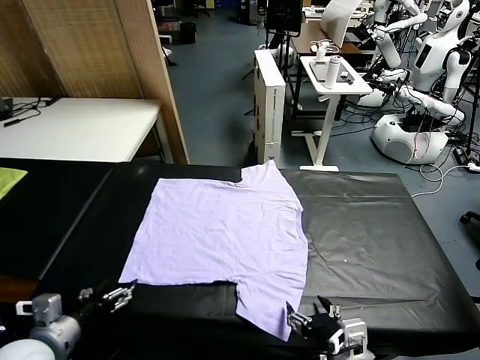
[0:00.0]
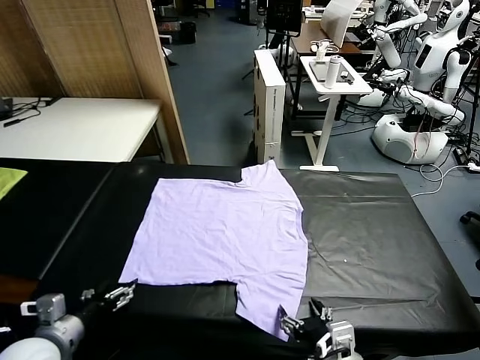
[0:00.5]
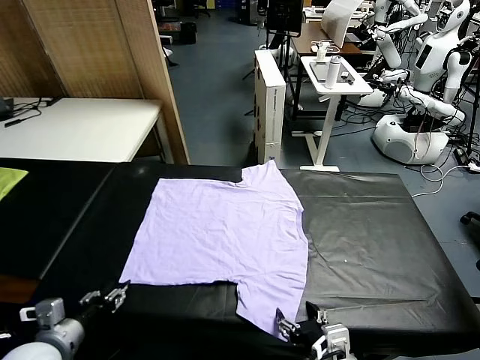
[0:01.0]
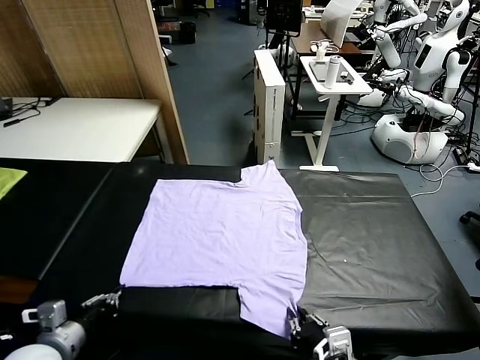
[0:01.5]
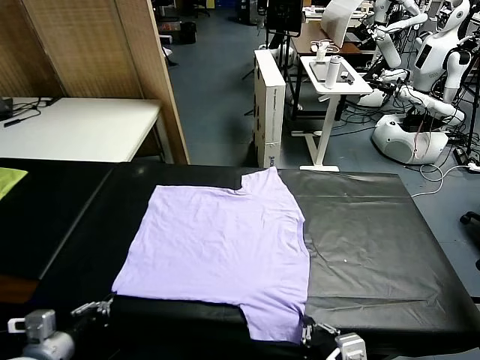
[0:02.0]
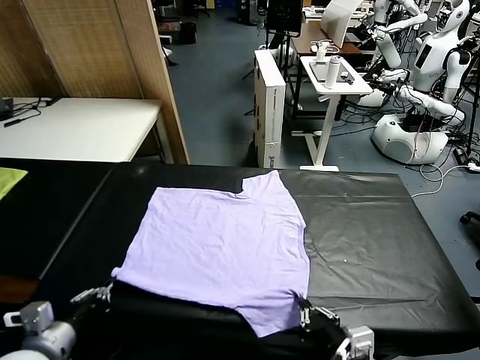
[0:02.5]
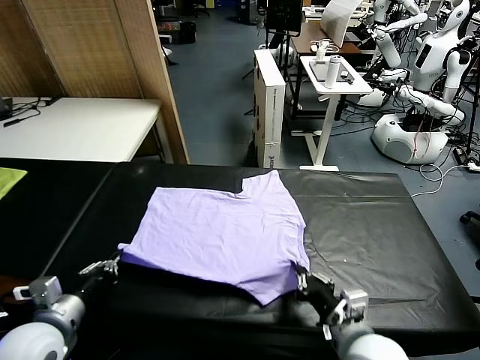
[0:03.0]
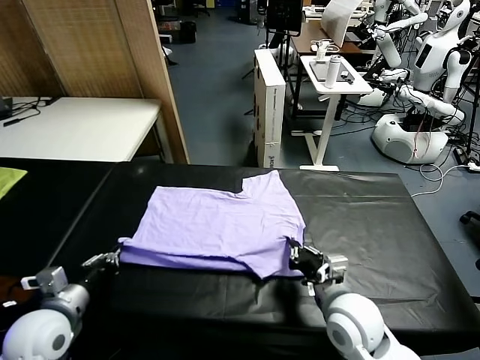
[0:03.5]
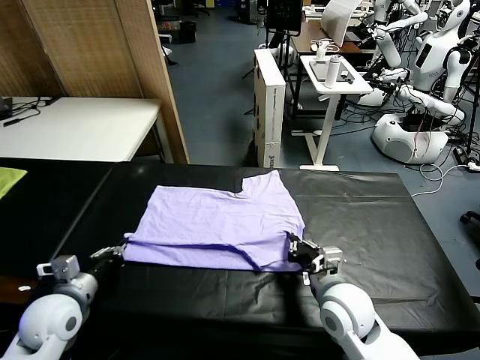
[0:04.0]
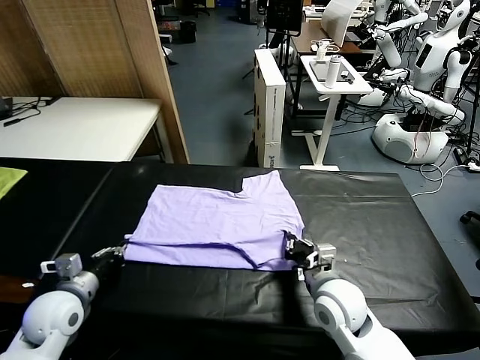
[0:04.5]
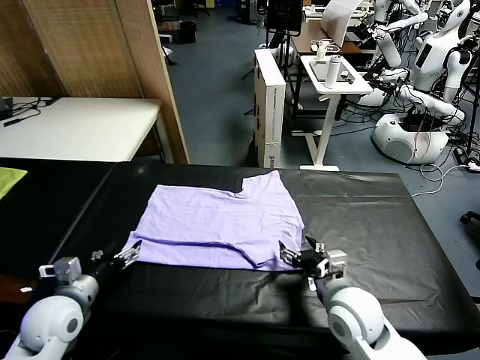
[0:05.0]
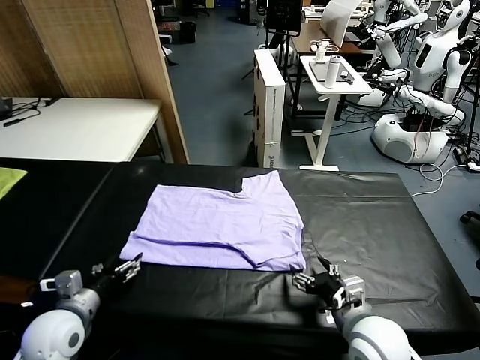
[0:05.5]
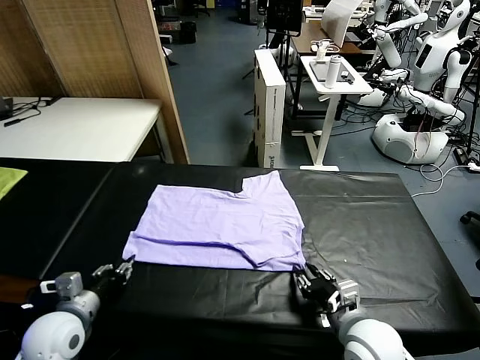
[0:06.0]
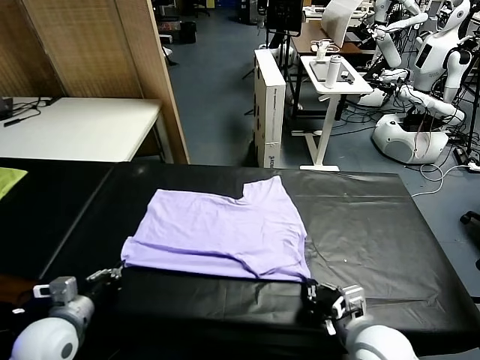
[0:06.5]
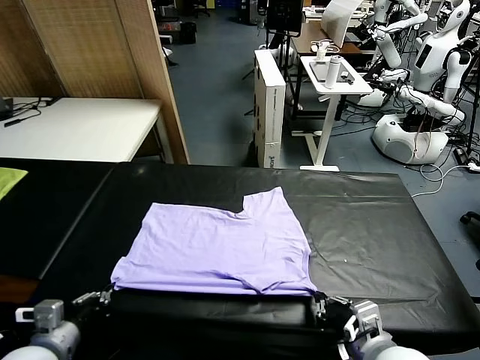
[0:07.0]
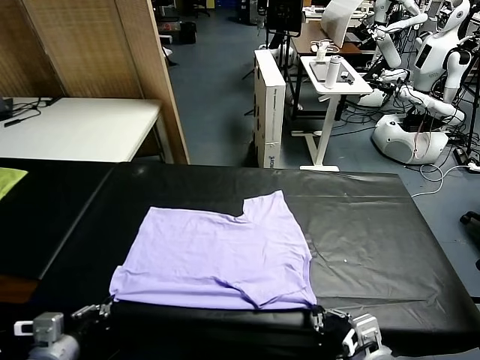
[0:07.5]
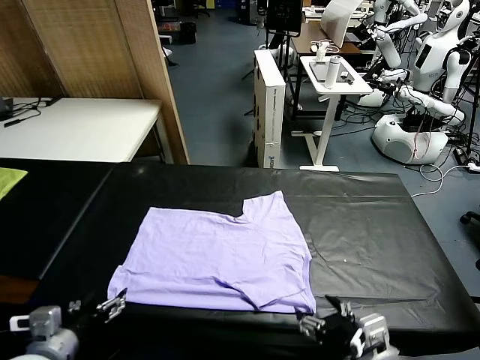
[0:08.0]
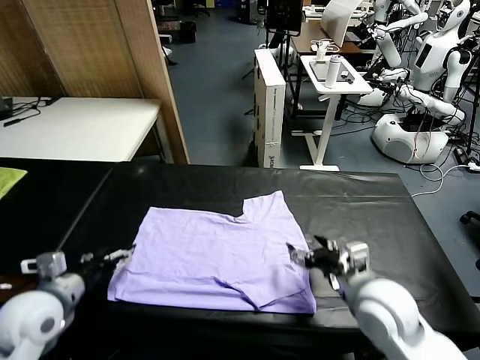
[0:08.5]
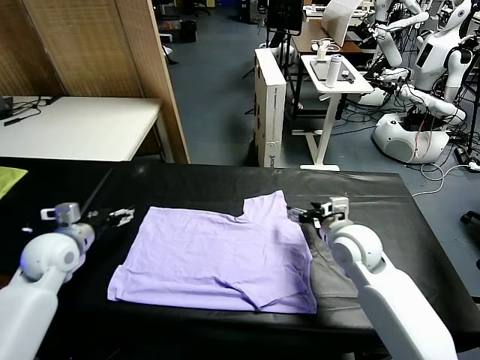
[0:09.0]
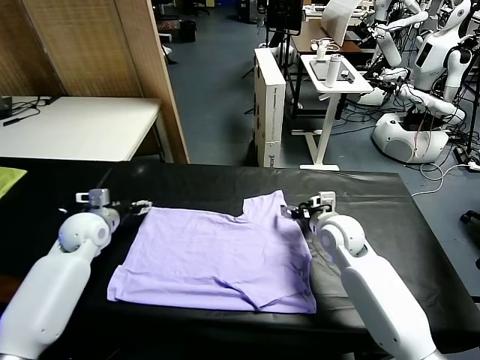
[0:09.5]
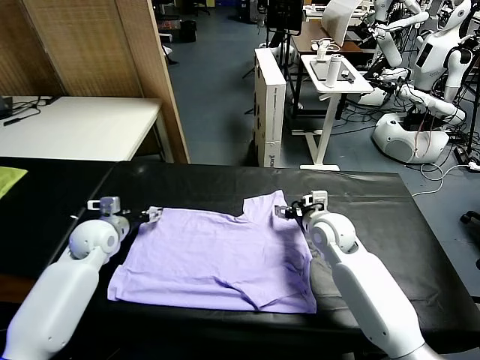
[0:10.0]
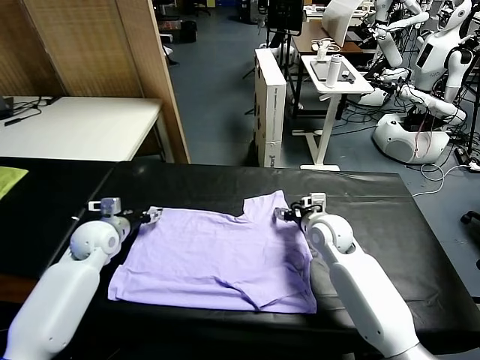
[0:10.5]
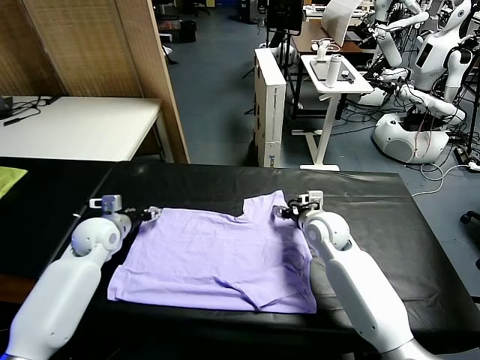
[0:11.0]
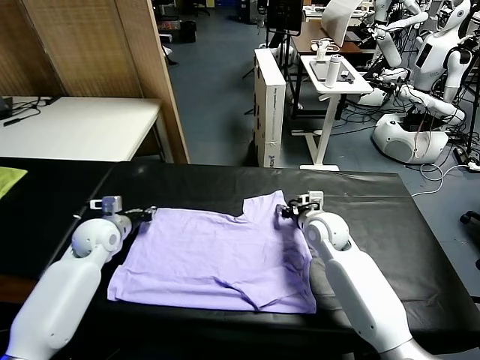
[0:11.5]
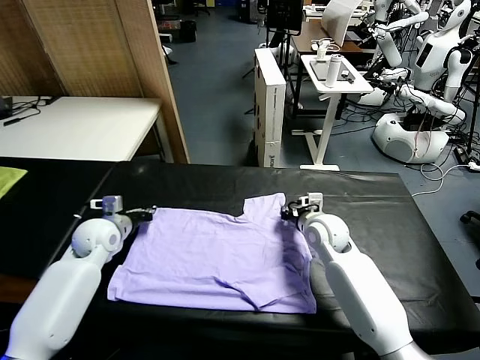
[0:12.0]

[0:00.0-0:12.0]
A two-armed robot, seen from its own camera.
Task of the whole recording: fold and organize the clothes.
Step, 0:00.0 to 0:01.5: use both grippers simultaneously to clamp the lower edge of the clothing fabric.
Step, 0:02.0 to 0:04.5: use both grippers to drag the lower edge of the fabric forward and fold it over the upper edge.
Step, 0:05.0 to 0:07.5: Drag the clothes downward with both gripper.
Step, 0:08.0 to 0:12.0: use both grippers simultaneously to clamp the upper edge of the clothing fabric.
0:02.0 to 0:04.0: The two grippers go some 15 cm forward.
0:04.0 to 0:06.0: The right gripper is displaced backward by about 10 cm, and opens, then closes once more. The left gripper opens, then closes again.
0:06.0 to 0:08.0: The left gripper travels backward and upward by some 10 cm, and opens. Meanwhile the right gripper heads upward, covering roughly 10 cm, moves about 10 cm backward and comes back, and opens up.
0:08.0 to 0:10.0: Both grippers move forward, some 25 cm.
0:10.0 to 0:12.0: The right gripper closes; the left gripper closes up.

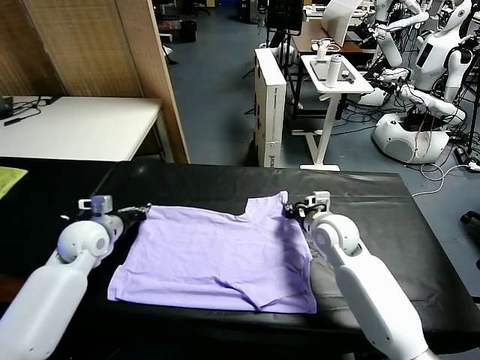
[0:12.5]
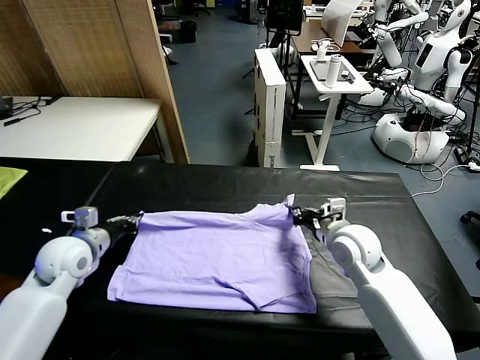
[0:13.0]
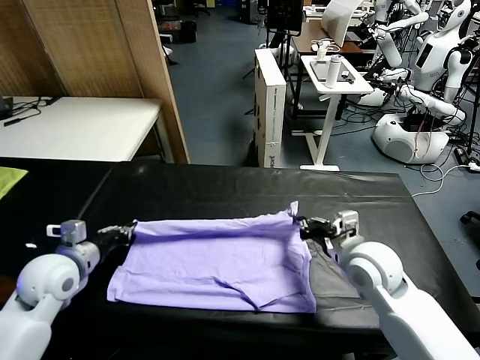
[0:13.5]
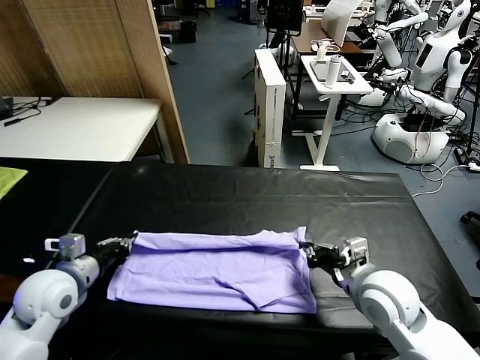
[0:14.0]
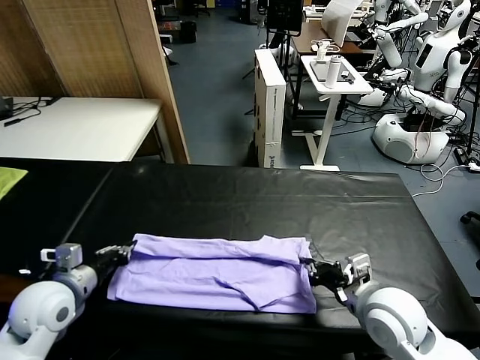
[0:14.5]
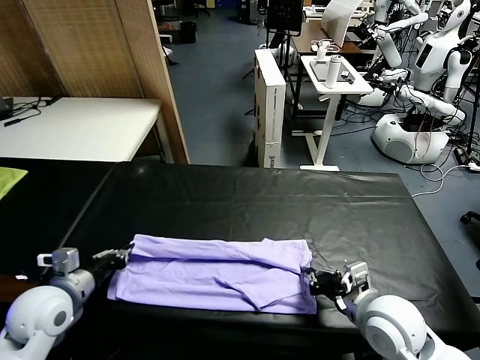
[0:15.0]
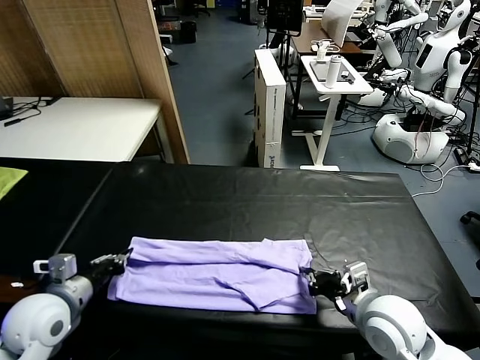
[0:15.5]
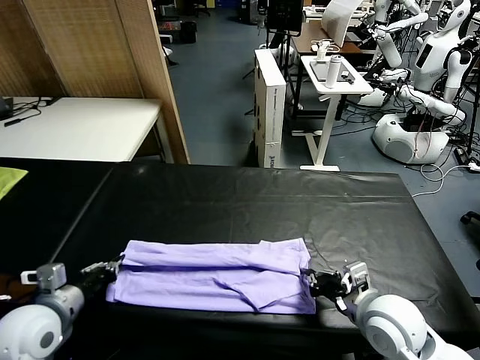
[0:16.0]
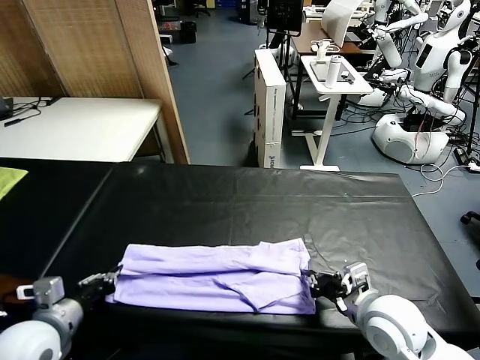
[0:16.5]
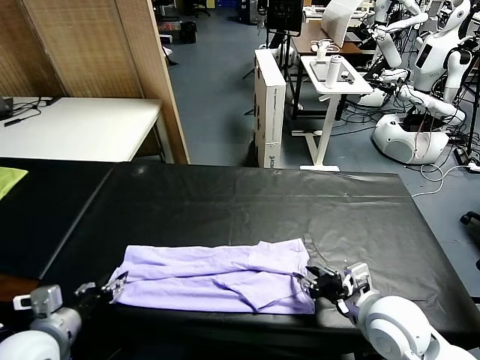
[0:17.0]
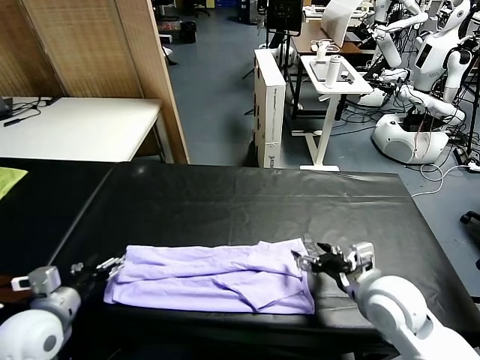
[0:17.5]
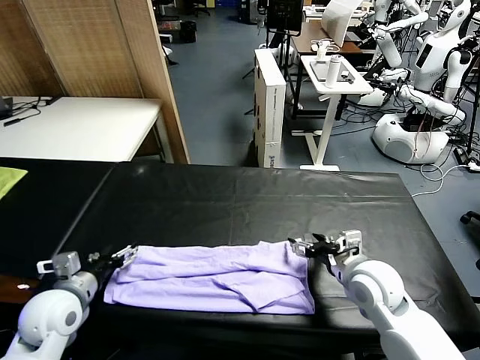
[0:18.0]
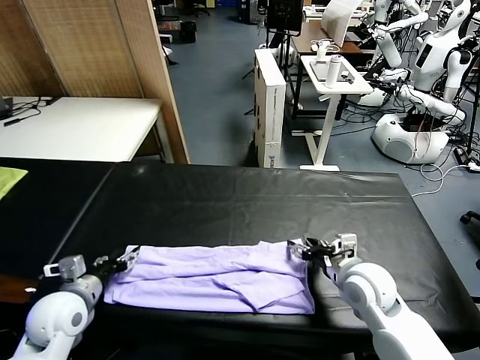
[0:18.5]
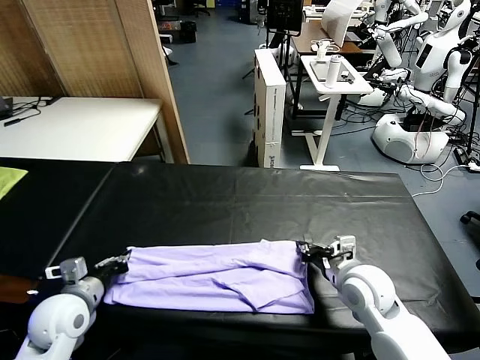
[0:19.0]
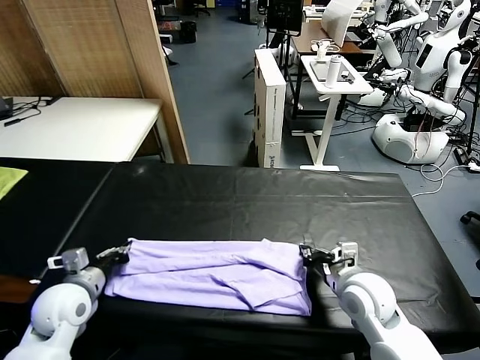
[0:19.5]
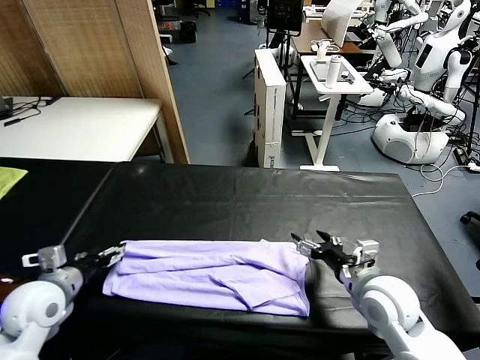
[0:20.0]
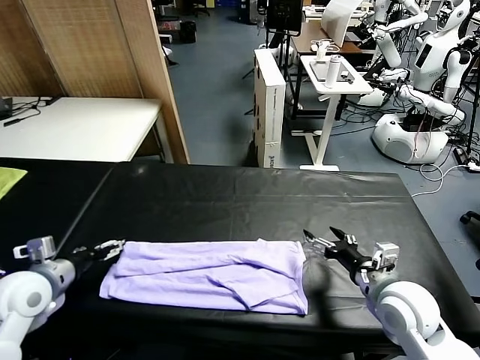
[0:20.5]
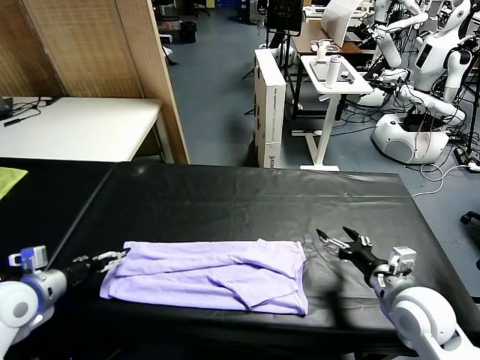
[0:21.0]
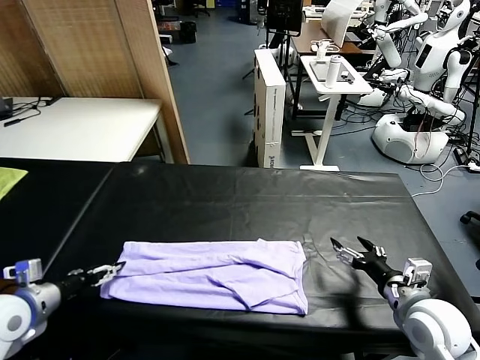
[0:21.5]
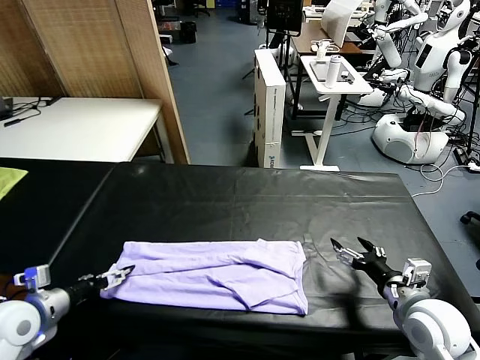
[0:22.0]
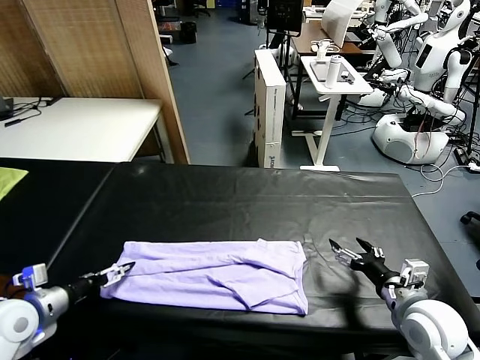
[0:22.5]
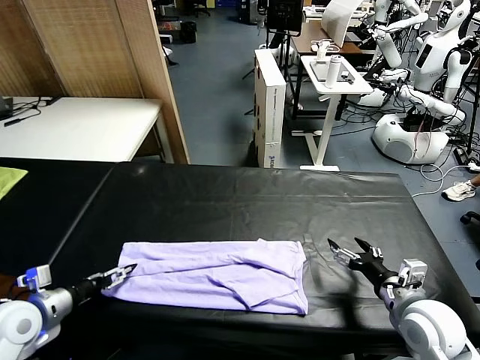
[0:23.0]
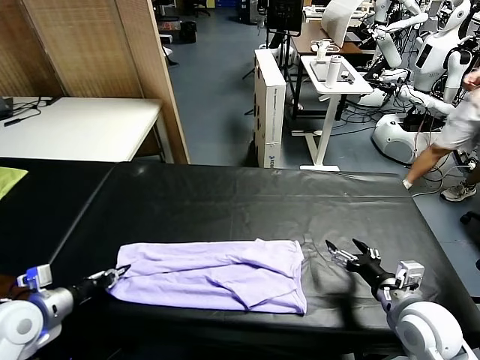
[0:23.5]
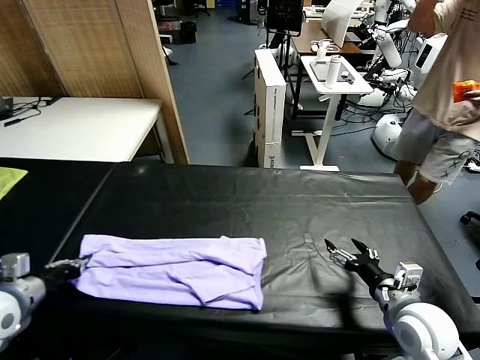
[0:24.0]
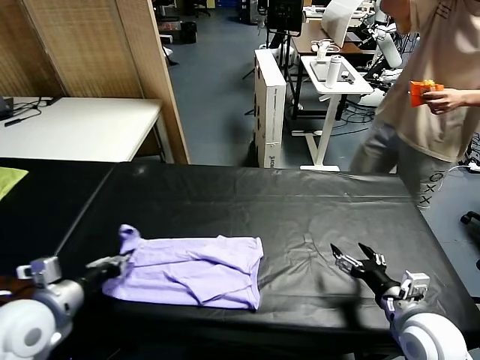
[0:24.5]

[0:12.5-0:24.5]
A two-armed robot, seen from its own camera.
Task of the whole recording: fold and organize the clothes.
Step, 0:12.5 to 0:17.0: use both grippers to drag the upper edge of the fabric backward and fold it over the lower edge.
Step, 0:17.5 to 0:23.5: use the left gripper to clamp the left edge of the fabric.
0:12.5 to 0:14.5: Both grippers move backward, roughly 15 cm.
0:14.5 to 0:16.5: The left gripper is displaced backward by roughly 5 cm.
0:16.5 to 0:18.5: The two grippers go some 5 cm forward. The left gripper opens up. Meanwhile the right gripper opens.
0:18.5 to 0:20.5: The left gripper heads upward, covering about 5 cm, and closes, then reopens. The right gripper goes roughly 5 cm backward, and opens up.
0:20.5 to 0:22.5: The right gripper ends up about 5 cm from where it was. The left gripper moves about 5 cm.
0:22.5 to 0:24.5: The left gripper travels to the right and upward by about 10 cm, and closes up.

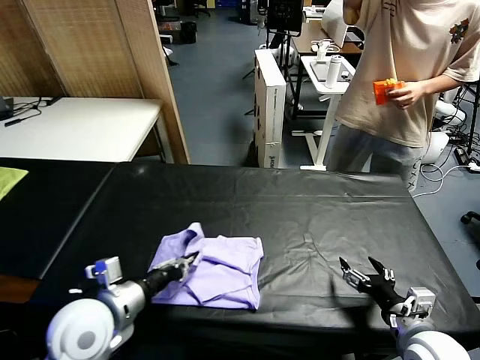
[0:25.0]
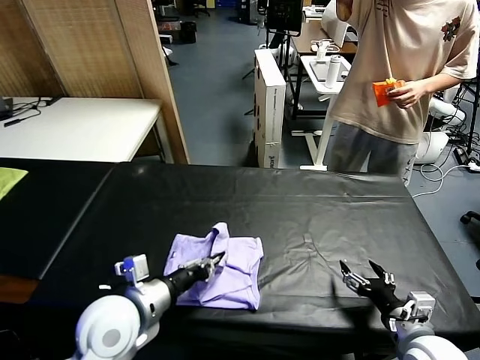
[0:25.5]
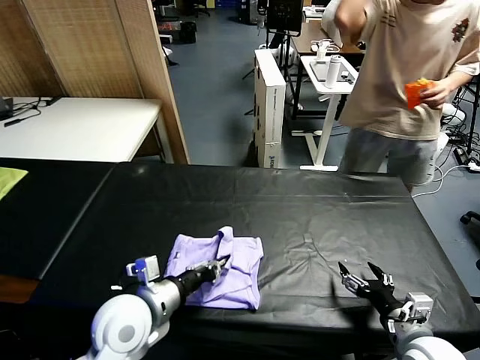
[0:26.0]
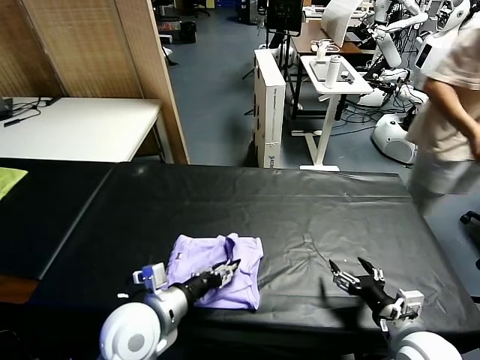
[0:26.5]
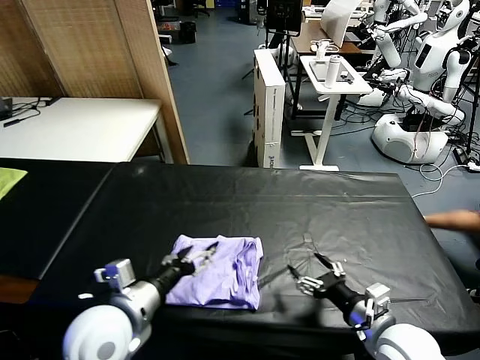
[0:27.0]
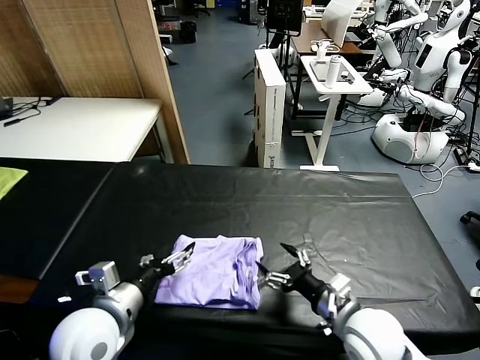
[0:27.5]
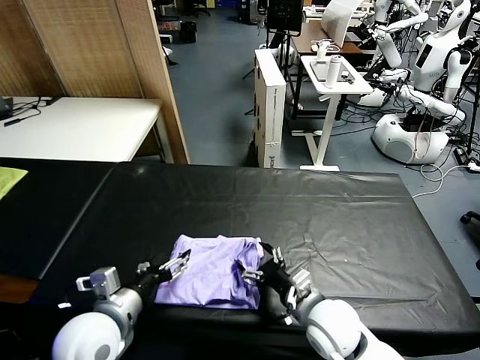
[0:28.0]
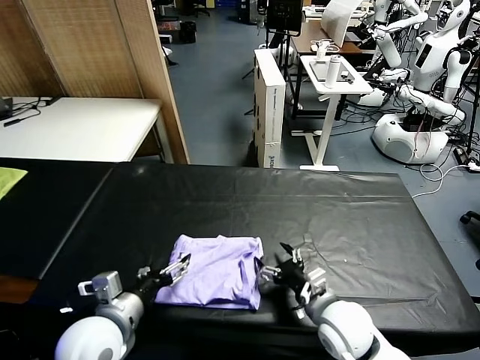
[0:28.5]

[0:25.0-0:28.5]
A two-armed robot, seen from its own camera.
Task of the whole recording: fold and organize the clothes.
Step, 0:25.0 to 0:26.5: use the left gripper to drag the left edge of the fabric to the left and folds it over the right edge.
0:25.0 to 0:27.0: The left gripper opens. Meanwhile the right gripper heads to the left, covering about 5 cm.
0:27.0 to 0:28.5: The right gripper travels to the left and forward by some 10 cm.
